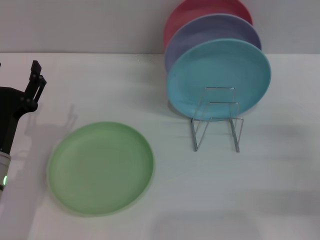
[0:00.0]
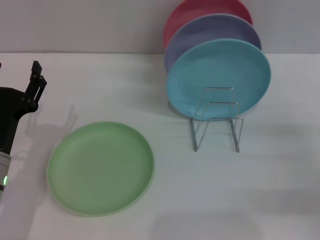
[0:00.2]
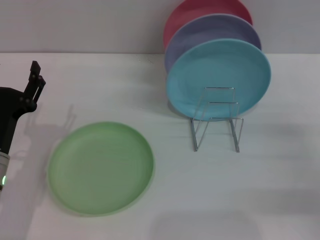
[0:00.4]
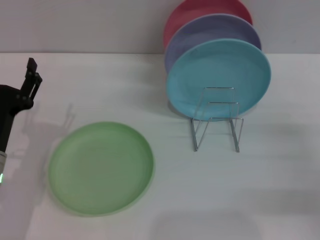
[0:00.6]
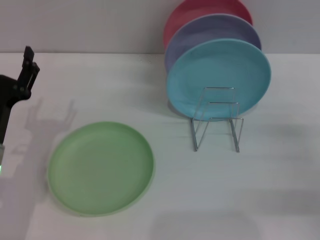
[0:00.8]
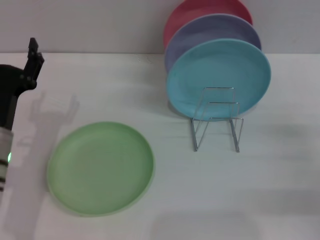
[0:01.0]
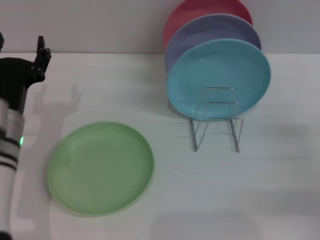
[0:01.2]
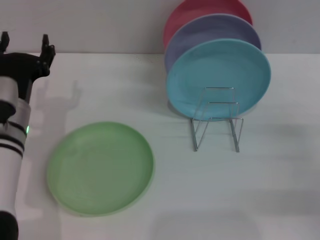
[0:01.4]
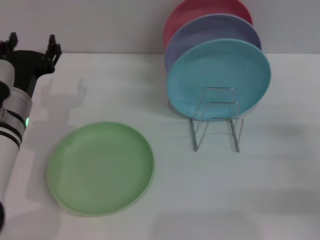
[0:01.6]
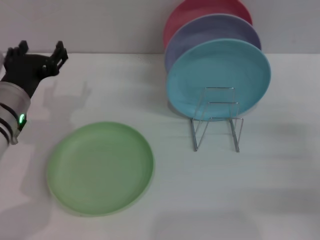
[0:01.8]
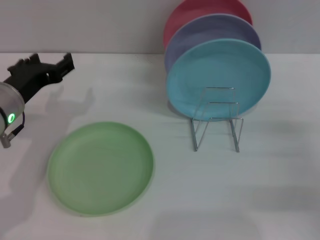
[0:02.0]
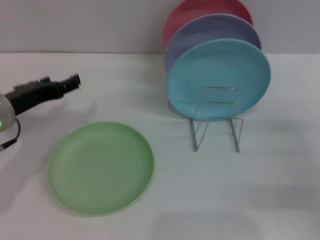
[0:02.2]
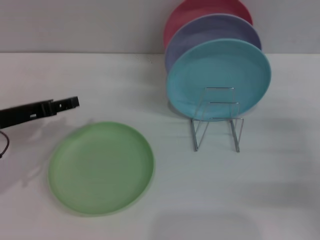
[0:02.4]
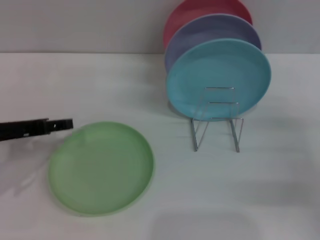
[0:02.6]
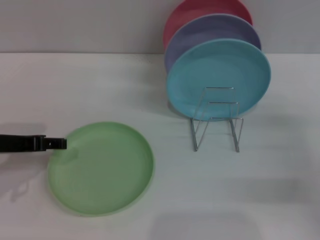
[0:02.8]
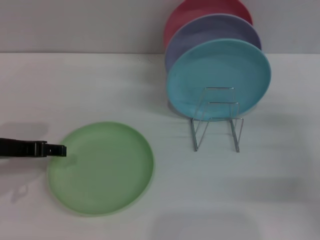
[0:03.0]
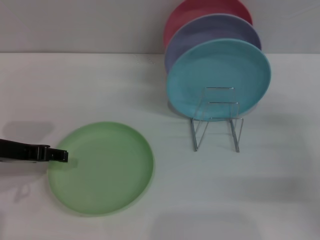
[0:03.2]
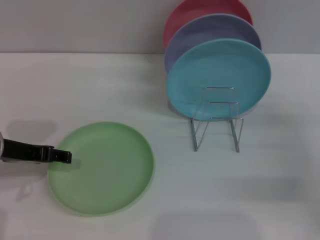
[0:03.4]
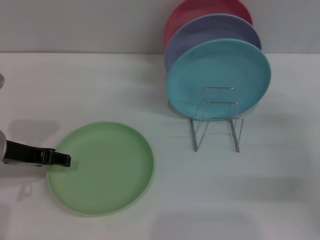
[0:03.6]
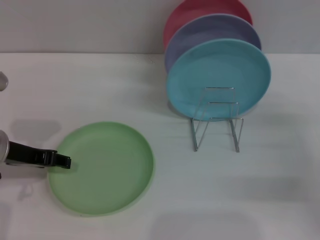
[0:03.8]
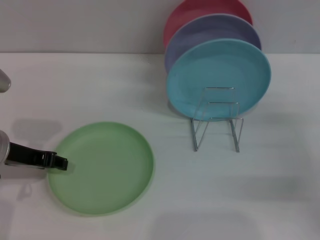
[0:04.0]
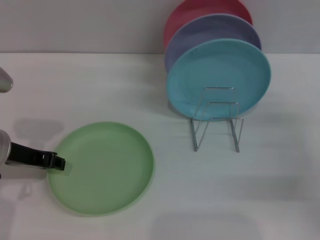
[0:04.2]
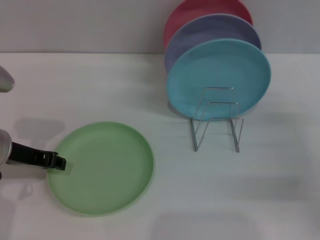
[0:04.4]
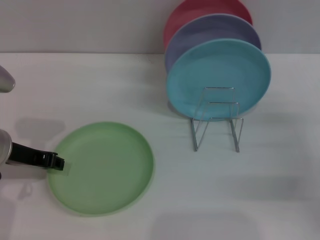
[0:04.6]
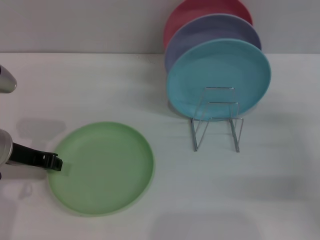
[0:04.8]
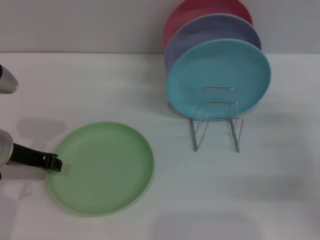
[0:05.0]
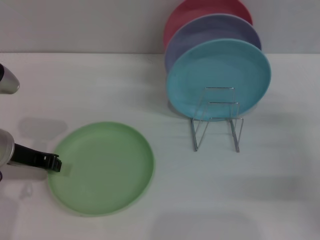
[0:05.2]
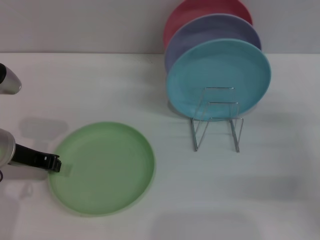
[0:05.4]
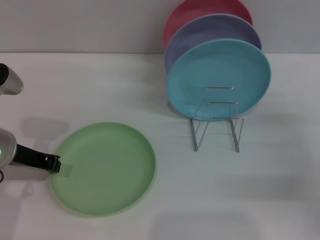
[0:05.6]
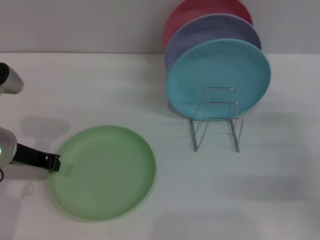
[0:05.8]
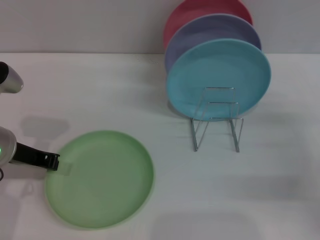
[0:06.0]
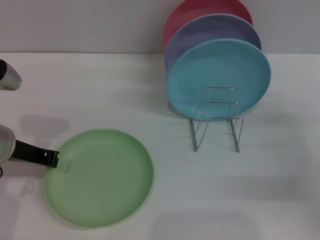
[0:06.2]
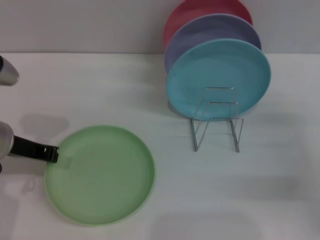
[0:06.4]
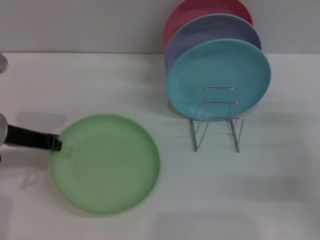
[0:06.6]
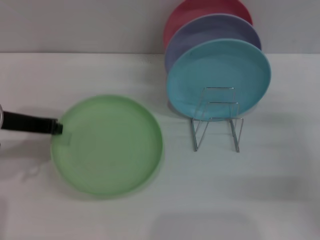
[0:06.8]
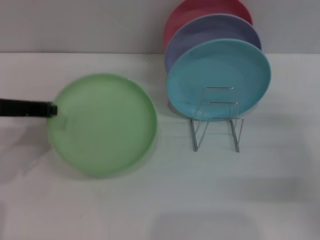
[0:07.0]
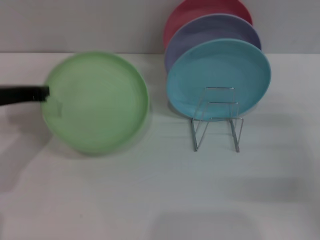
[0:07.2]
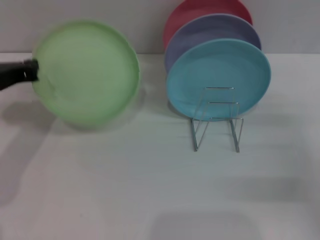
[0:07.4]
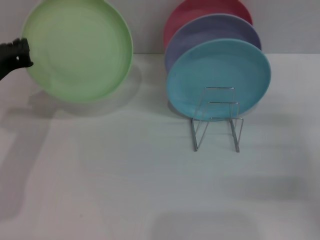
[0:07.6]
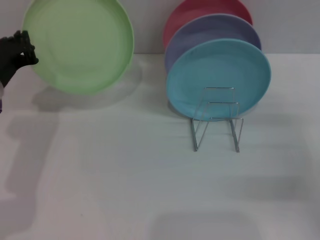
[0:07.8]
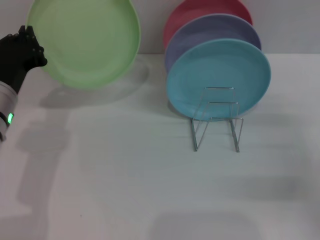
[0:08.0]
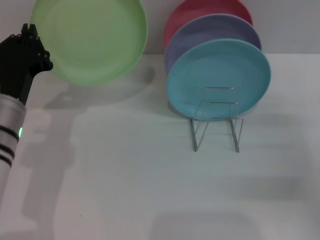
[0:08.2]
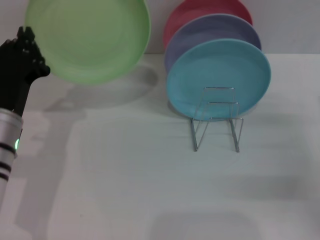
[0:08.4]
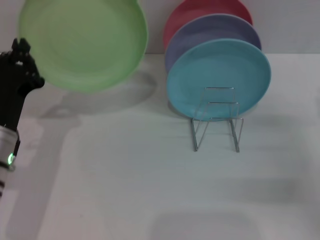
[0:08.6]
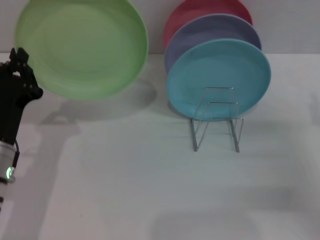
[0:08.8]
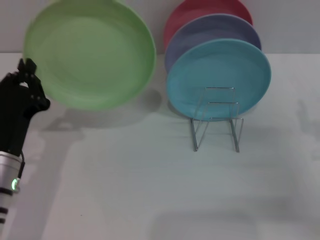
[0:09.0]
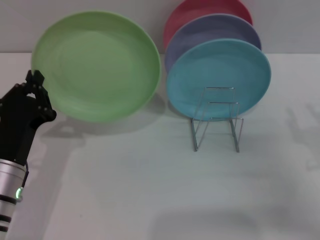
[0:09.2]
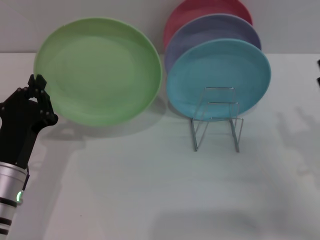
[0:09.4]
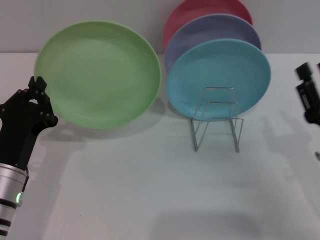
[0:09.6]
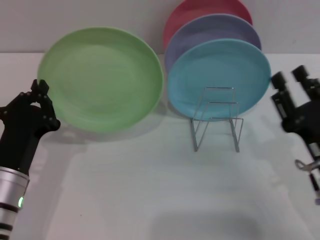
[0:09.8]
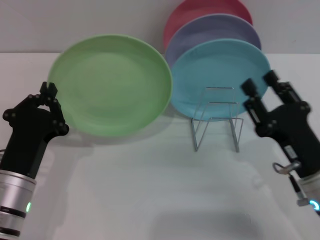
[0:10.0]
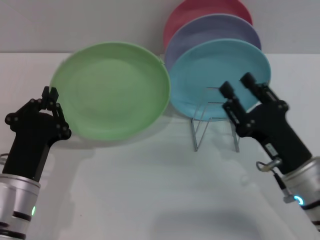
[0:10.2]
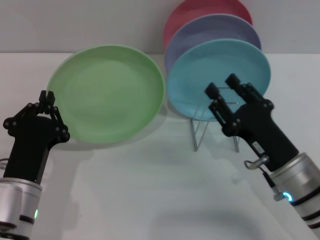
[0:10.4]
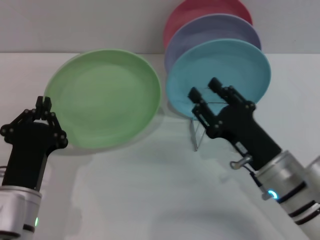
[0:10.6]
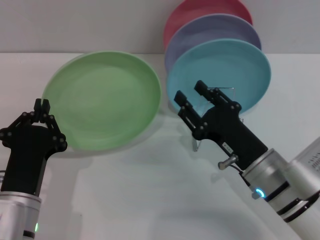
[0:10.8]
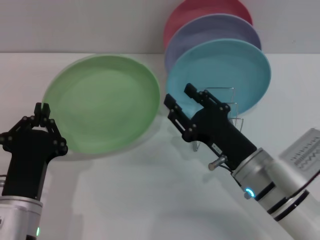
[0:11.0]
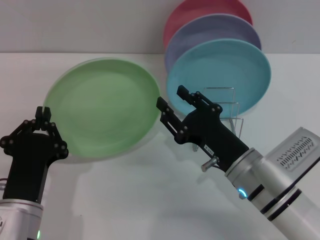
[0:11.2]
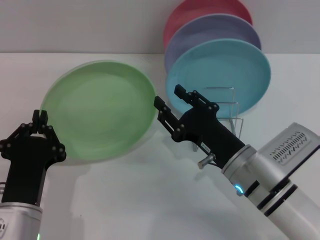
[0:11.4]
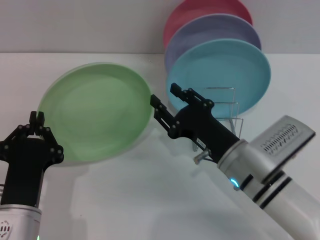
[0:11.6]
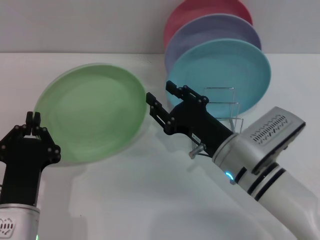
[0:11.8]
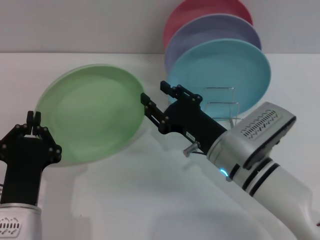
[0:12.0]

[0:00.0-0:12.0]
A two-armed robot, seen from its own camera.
Task of the whole recording: Grip the plate with one hand, pass it to the other, then set it on the shelf.
Step, 0:00.0 to 0:08.8: Pick up the plate with the left gripper.
0:00.0 to 0:01.6: The left gripper shifts approximately 5 cm forward.
0:01.6 to 0:03.0: The left gripper travels to the left by approximately 5 cm.
0:03.0 to 0:04.4: The left gripper closes its fingers.
0:04.4 to 0:06.0: The left gripper closes.
0:07.6 to 0:09.0: The left gripper moves backward and downward, roughly 10 cm.
0:09.0 to 0:10.4: The right gripper heads to the left, covering roughly 10 cm.
0:10.4 to 0:12.0: The right gripper travels to the left by roughly 5 cm.

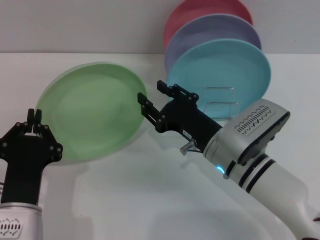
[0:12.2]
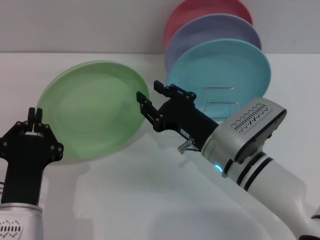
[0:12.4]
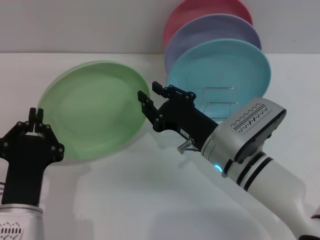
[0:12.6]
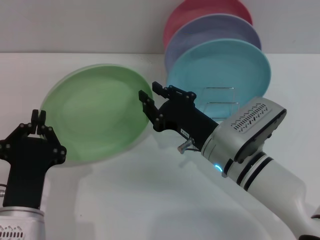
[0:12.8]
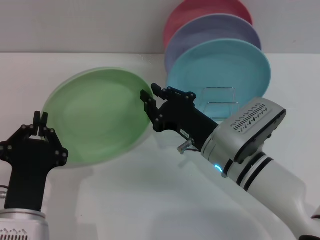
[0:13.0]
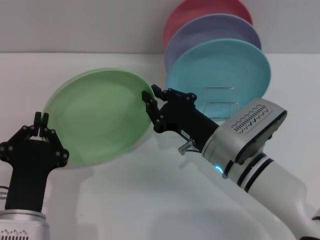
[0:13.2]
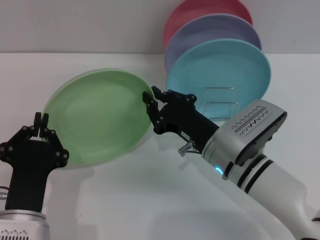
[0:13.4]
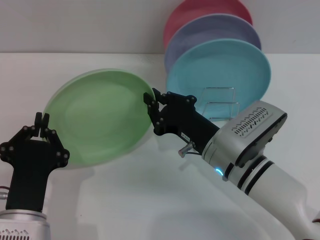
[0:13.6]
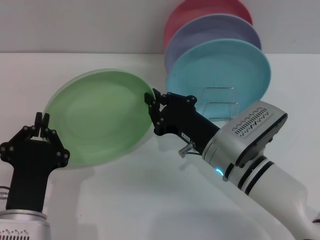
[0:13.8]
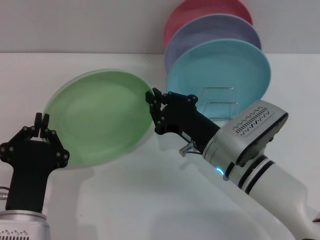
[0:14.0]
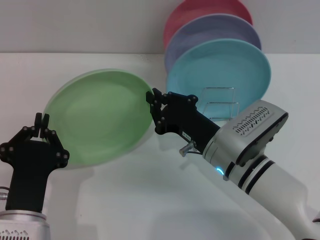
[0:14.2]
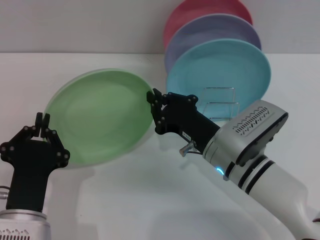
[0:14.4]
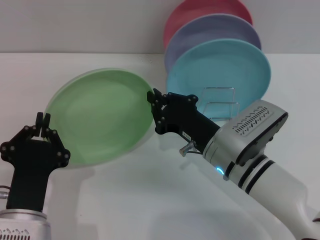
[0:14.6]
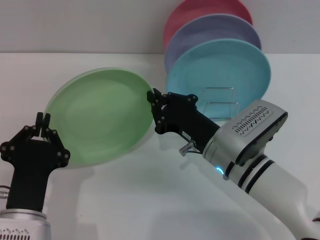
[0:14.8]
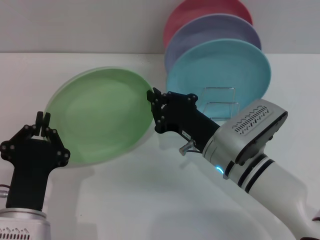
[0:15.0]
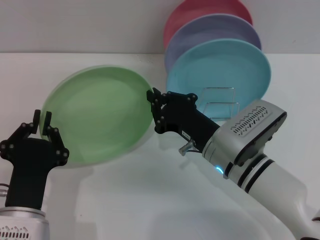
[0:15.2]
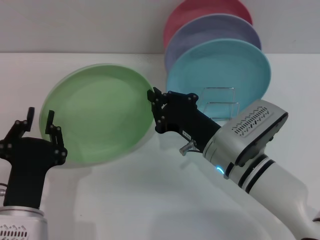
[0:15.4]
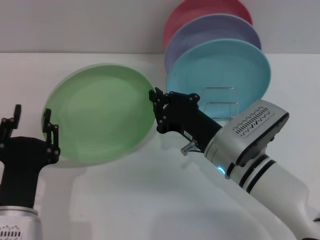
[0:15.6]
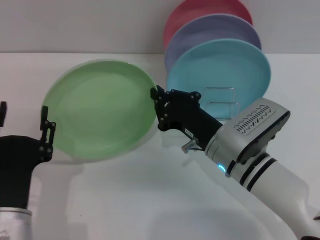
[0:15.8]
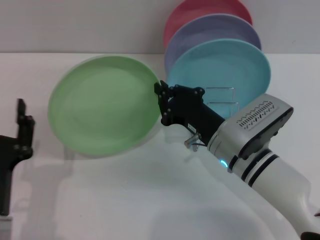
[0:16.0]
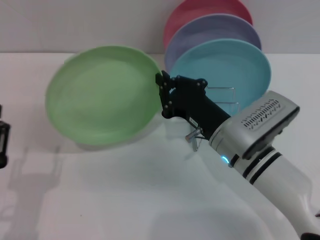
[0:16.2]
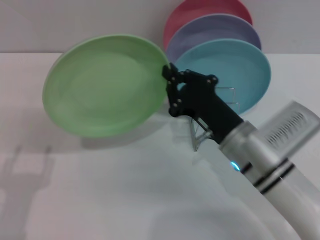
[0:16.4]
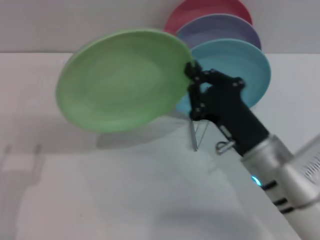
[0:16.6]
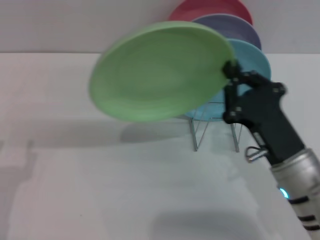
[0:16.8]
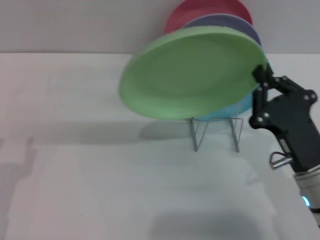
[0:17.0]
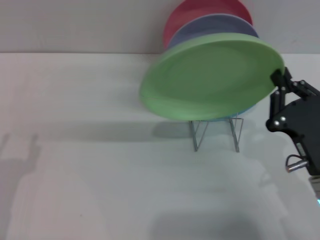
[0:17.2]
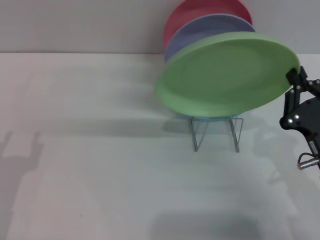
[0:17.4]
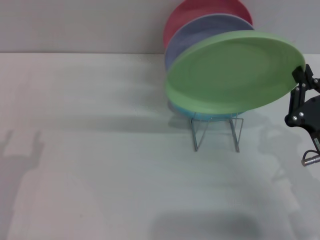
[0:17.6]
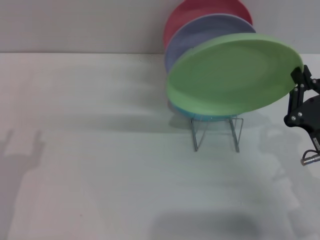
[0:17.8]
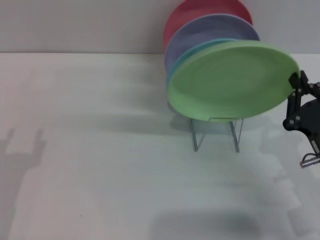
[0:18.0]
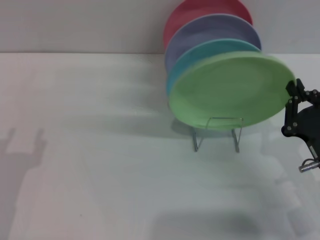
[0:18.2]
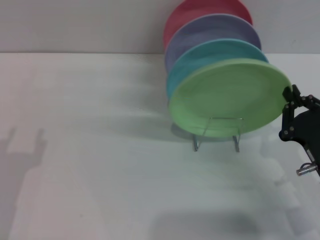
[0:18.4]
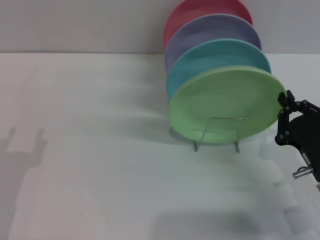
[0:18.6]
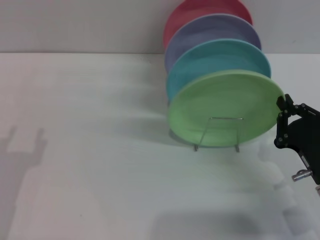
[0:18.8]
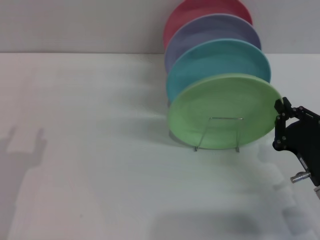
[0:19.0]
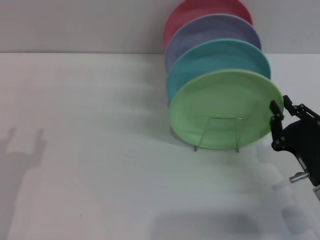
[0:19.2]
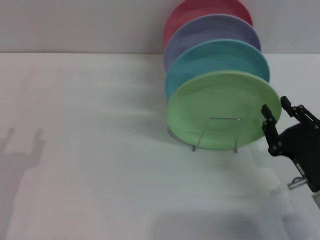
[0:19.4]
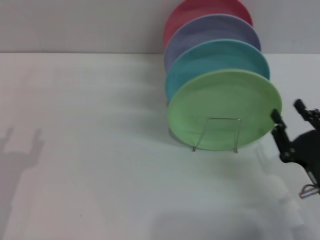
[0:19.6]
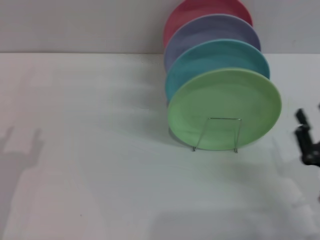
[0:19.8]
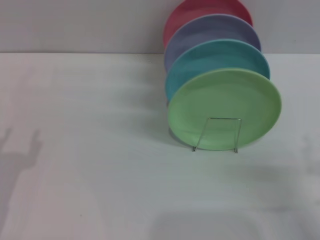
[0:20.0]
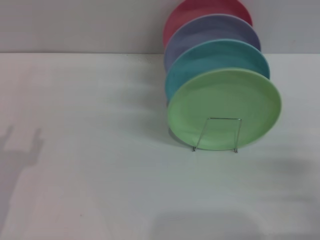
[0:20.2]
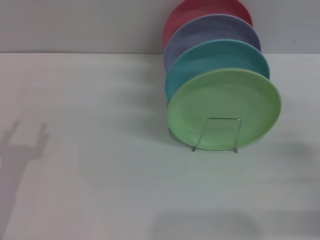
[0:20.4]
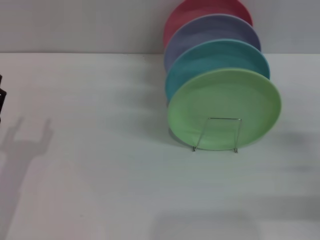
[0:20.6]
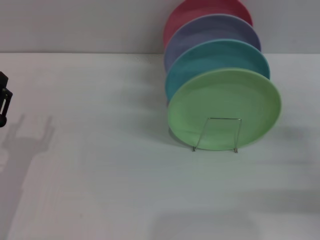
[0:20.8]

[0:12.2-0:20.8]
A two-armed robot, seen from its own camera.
Task of the whole recording: Grip the plate with one hand, pass it to the other, then set it on the shelf.
Step, 0:12.2 to 0:15.8: Pass the plate from the left gripper to the right gripper.
Step, 0:16.0 to 0:19.6: Place the plate on the shelf with the right gripper.
0:12.2 to 0:13.6: The right gripper closes.
0:13.6 to 0:15.0: Neither gripper changes place.
0:15.0 to 0:16.6: The left gripper is displaced to the left by approximately 10 cm, and opens its fingers; the right gripper shifts by some 5 cm.
0:16.6 to 0:18.0: The right gripper shifts approximately 10 cm to the right.
0:18.0 to 0:19.4: There are only small adjustments of the grippers.
0:19.4 to 0:20.8: The right gripper moves to the right, approximately 10 cm, and opens up.

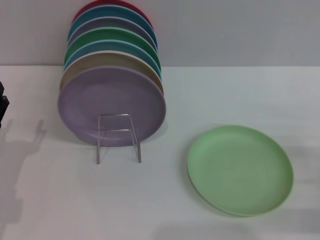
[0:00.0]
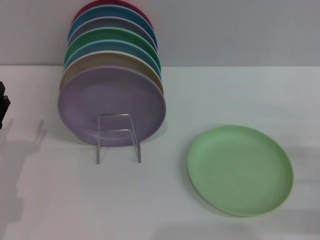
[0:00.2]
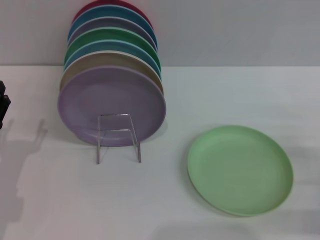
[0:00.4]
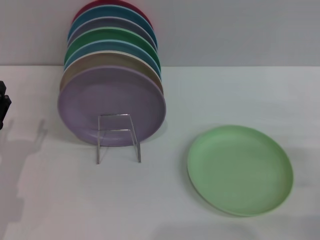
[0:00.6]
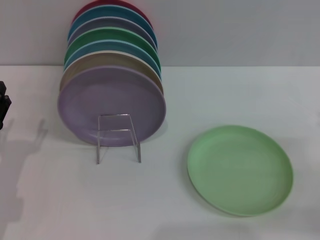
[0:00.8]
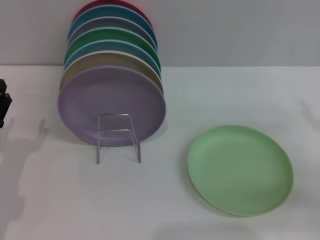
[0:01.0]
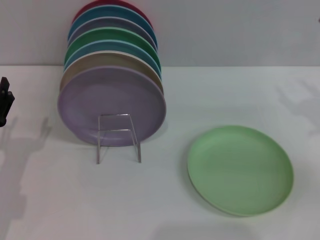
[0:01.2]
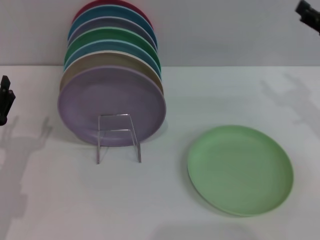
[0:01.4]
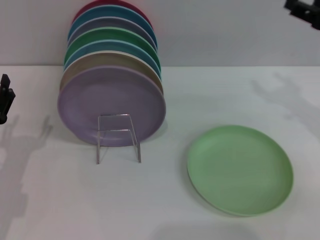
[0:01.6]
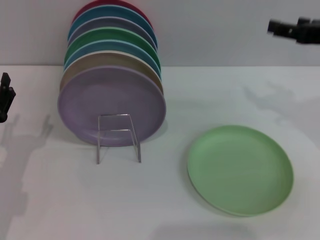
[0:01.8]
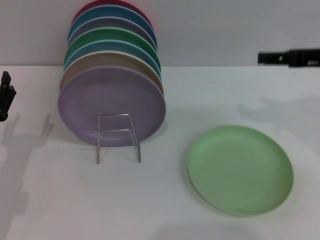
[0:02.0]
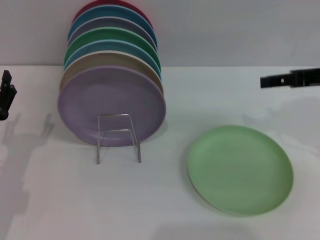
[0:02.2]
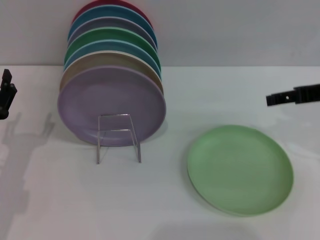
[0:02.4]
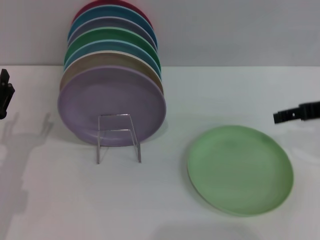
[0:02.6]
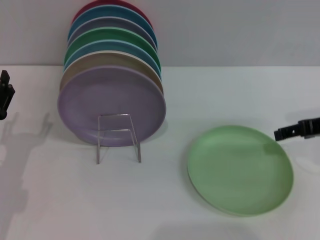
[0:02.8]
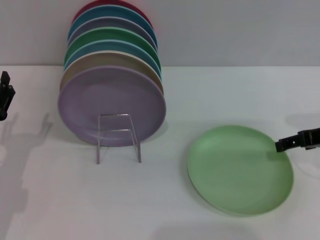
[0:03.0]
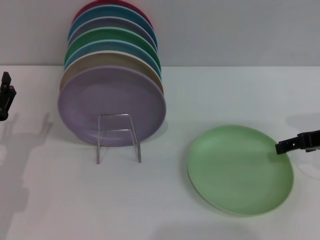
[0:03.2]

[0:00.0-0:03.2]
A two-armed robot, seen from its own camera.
Task of the whole recording: Grip the plate with one hand, pass it to the other, then set it on the shelf.
0:00.0 to 0:01.6: The right gripper moves upward and forward, approximately 20 cm.
0:01.6 to 0:03.2: The right gripper moves downward, roughly 5 cm.
